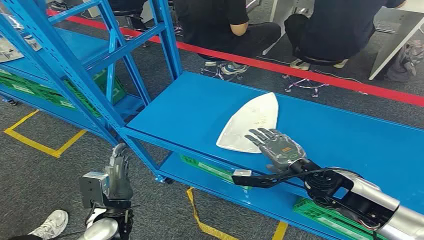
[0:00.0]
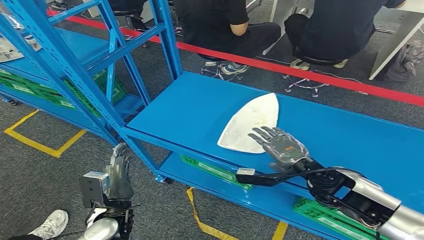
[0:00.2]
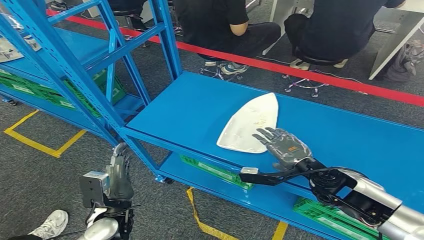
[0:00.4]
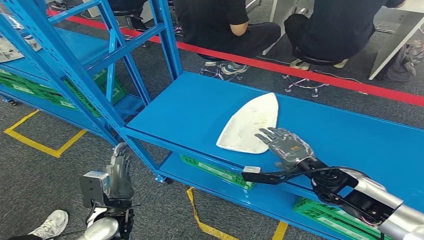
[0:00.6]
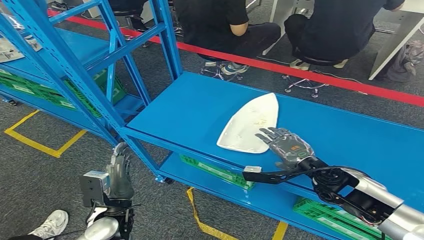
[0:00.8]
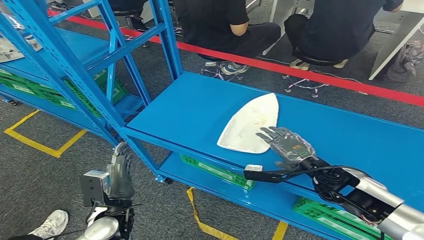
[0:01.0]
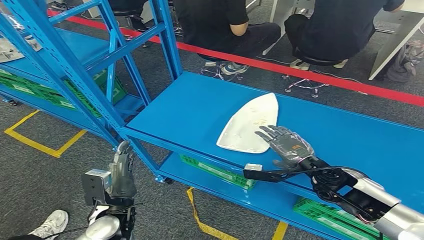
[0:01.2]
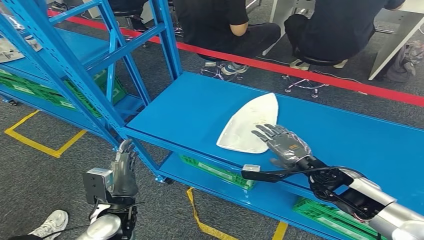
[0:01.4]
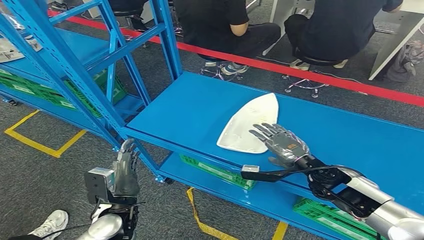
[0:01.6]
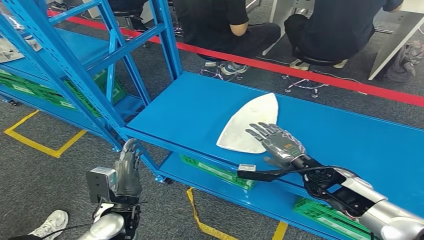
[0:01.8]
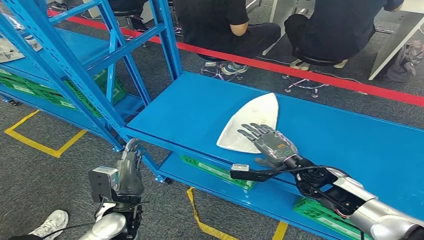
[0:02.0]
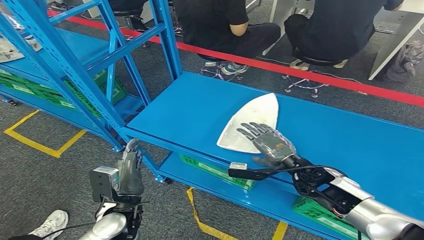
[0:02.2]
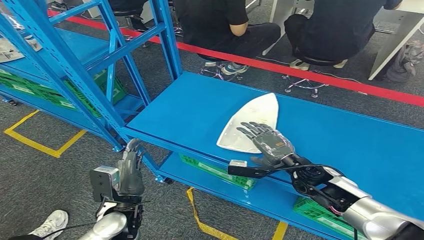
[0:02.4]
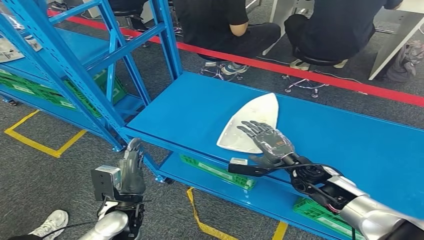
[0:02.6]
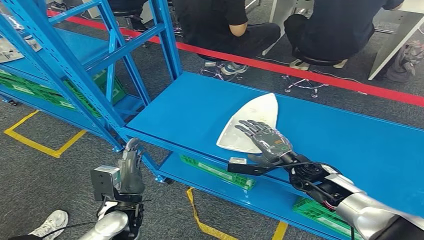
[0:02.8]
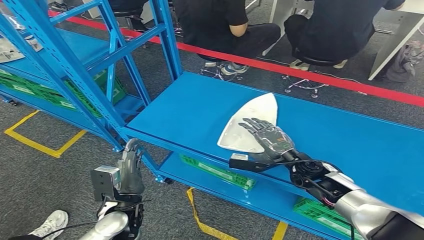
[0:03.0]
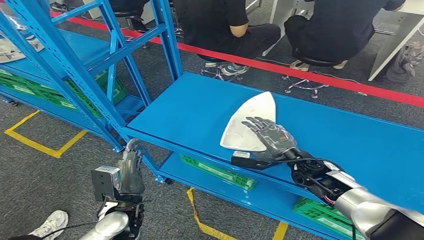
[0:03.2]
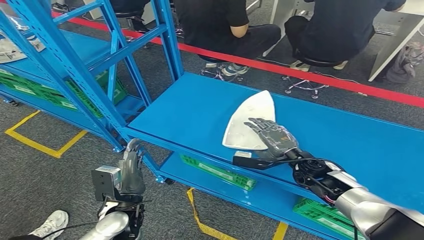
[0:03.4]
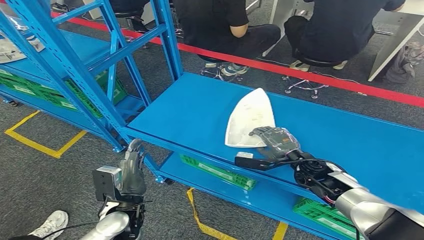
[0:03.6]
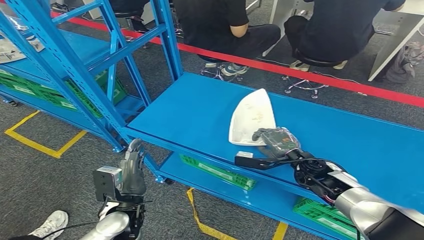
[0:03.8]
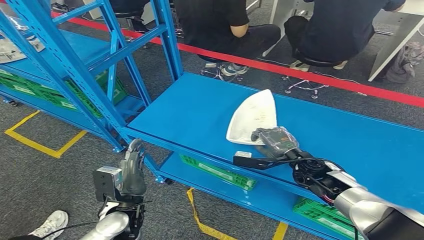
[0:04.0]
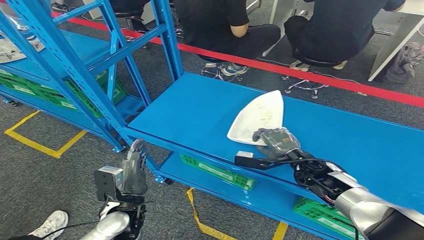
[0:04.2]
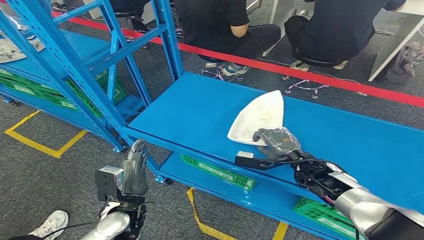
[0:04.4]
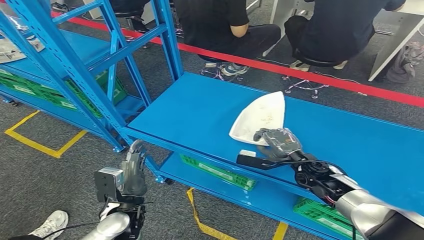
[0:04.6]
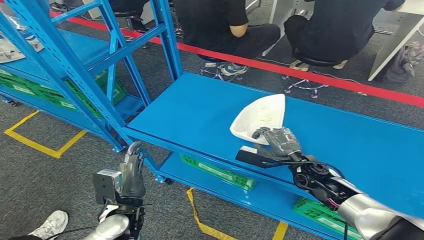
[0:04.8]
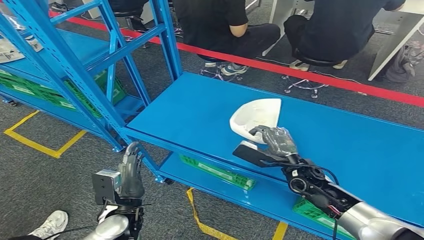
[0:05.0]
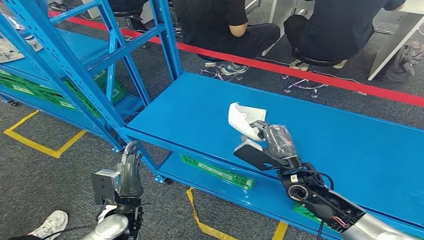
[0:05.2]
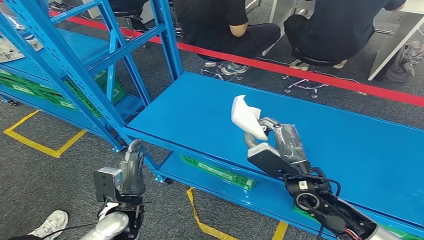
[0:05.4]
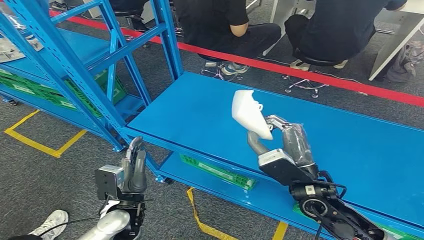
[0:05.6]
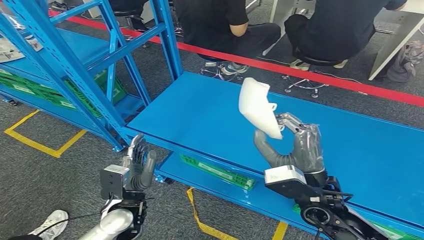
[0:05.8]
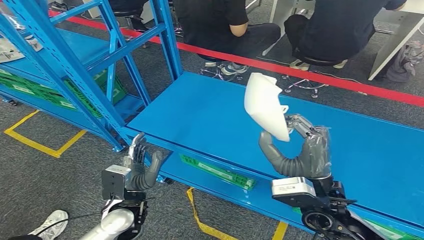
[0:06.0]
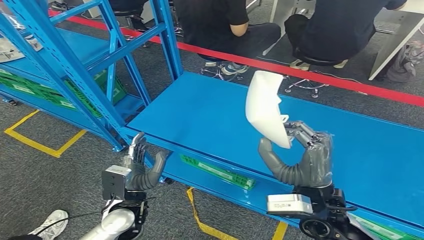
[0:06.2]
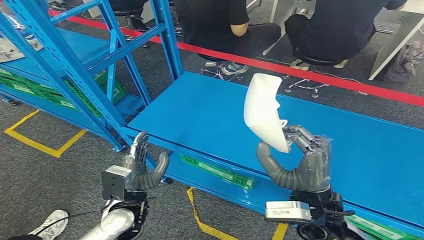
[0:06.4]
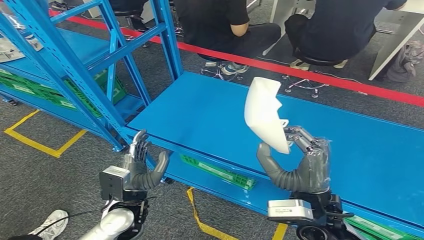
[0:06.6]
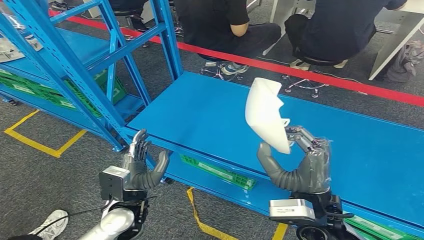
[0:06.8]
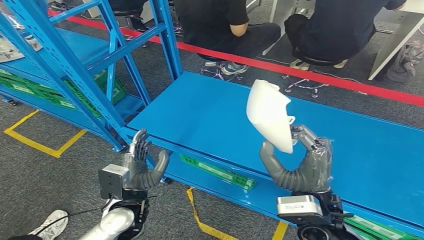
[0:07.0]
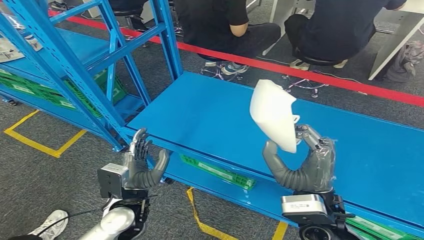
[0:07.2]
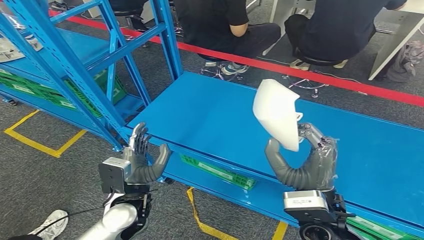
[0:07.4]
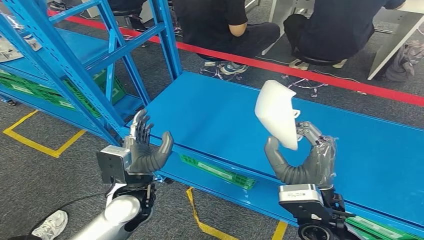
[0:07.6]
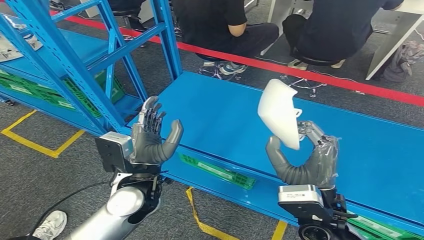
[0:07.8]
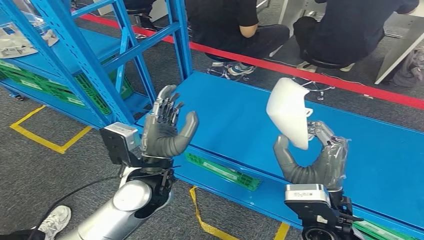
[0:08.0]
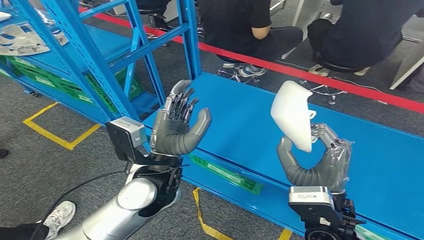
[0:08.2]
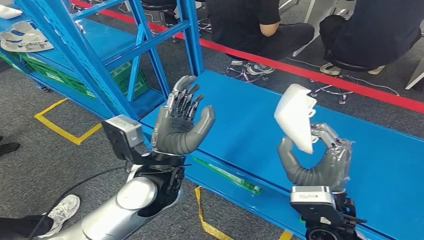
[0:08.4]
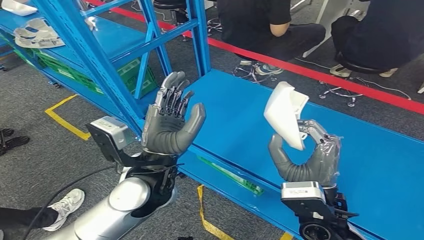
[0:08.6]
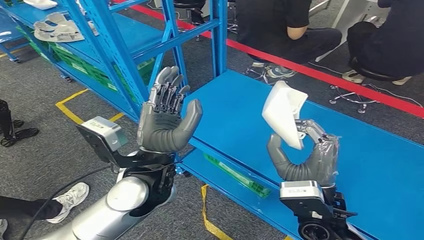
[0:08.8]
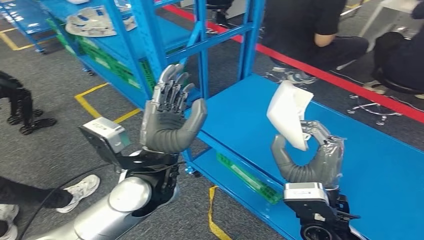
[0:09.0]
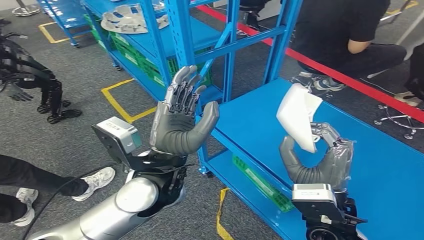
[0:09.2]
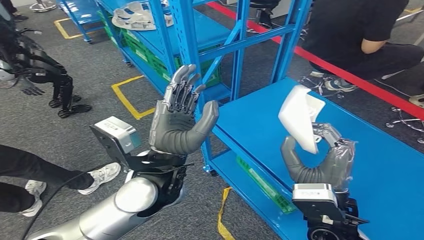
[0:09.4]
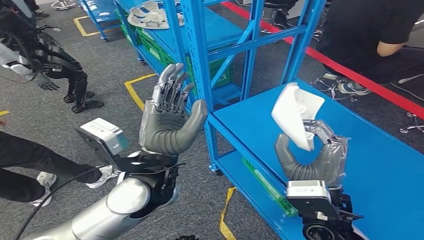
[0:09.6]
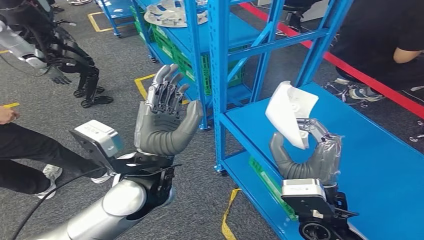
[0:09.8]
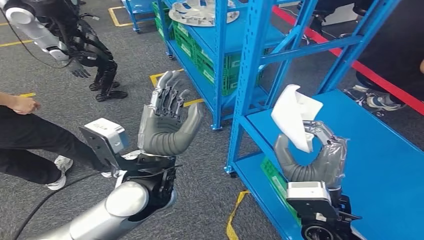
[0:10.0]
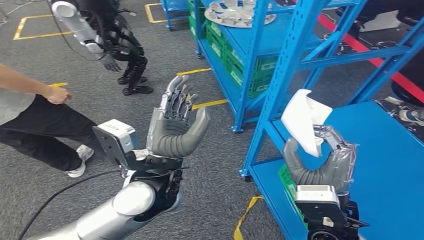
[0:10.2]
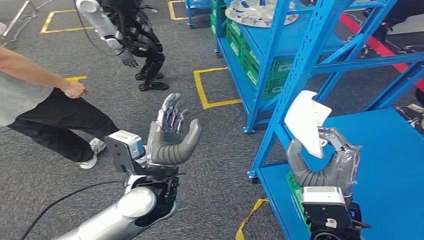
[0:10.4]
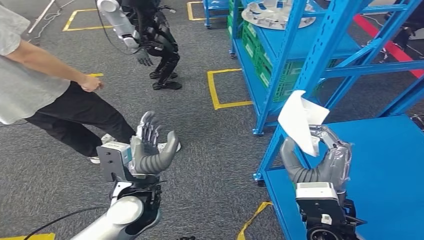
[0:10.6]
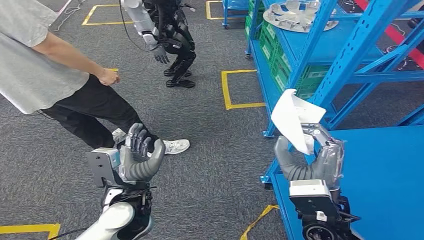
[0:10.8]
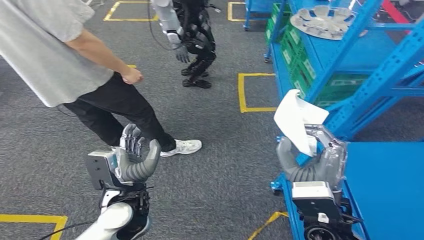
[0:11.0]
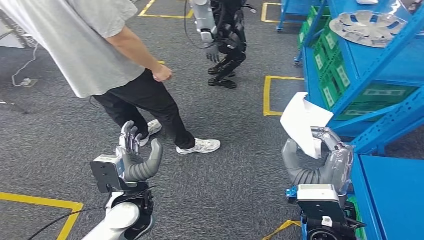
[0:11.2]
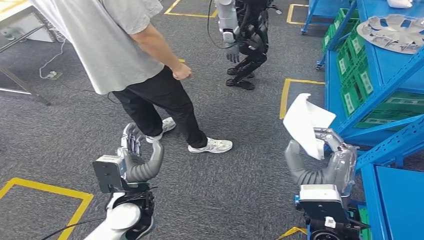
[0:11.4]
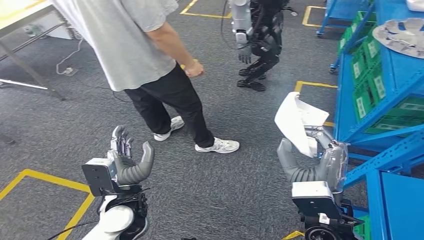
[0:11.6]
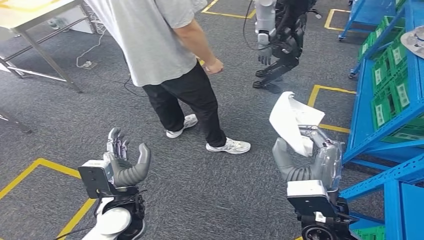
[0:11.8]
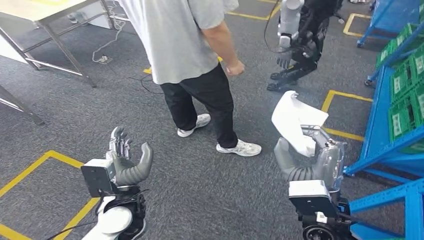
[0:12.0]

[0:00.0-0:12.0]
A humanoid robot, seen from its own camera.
Step, 0:00.0 to 0:06.6: Pick up the small component from the shelf.
0:01.6 to 0:04.4: The hands move only a little.
0:04.4 to 0:06.0: The right hand travels upward, backward and to the left by about 20 cm.
0:06.0 to 0:07.6: The left hand shifts roughly 5 cm upward.

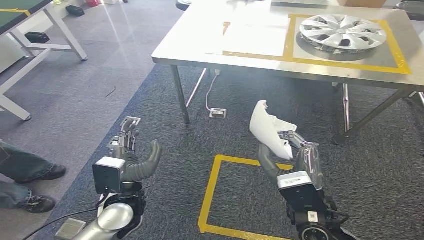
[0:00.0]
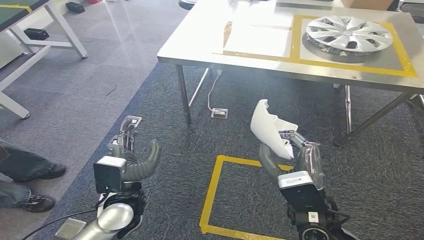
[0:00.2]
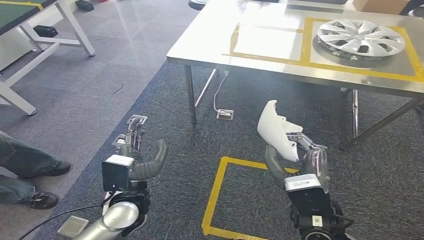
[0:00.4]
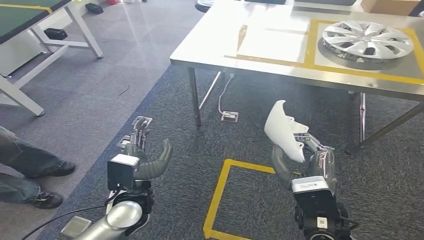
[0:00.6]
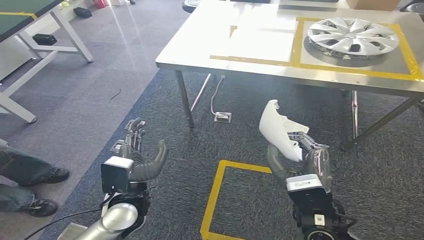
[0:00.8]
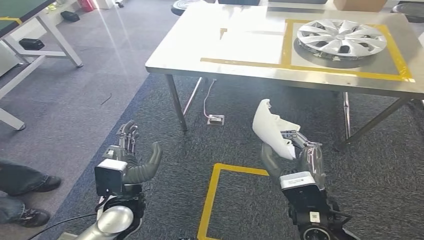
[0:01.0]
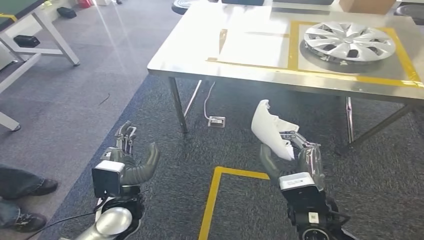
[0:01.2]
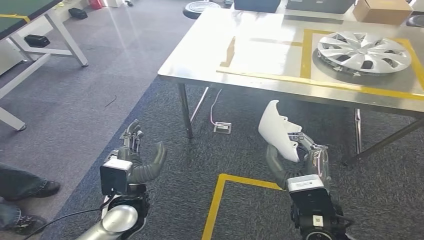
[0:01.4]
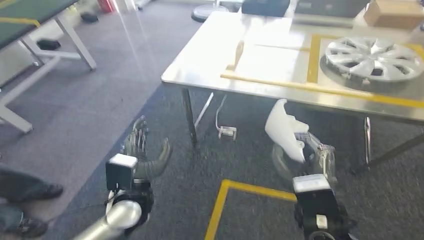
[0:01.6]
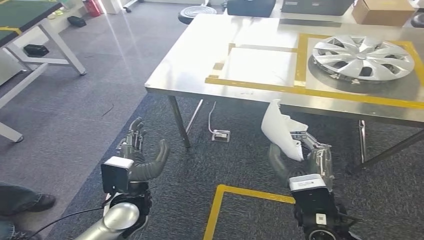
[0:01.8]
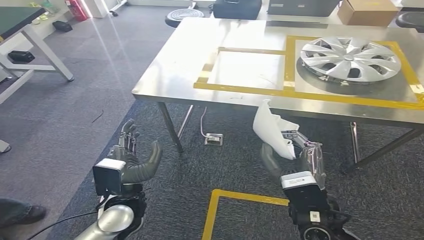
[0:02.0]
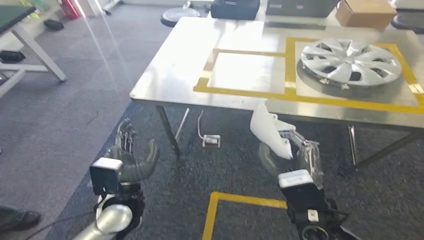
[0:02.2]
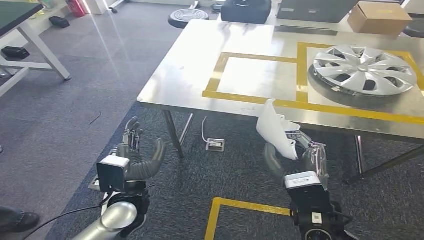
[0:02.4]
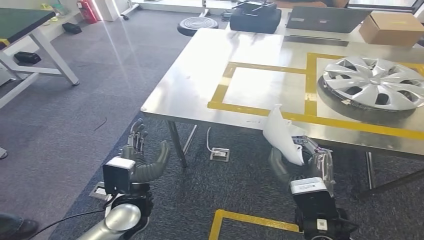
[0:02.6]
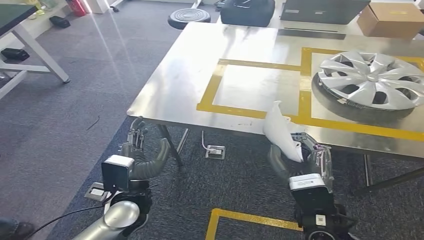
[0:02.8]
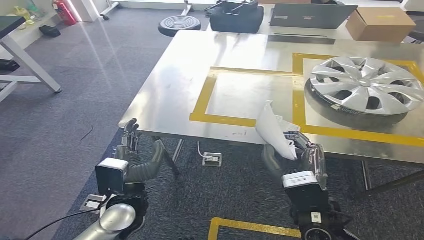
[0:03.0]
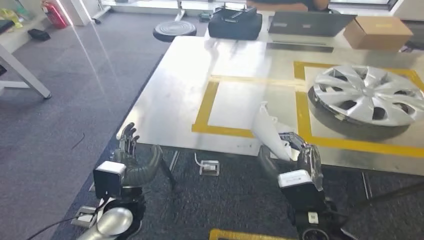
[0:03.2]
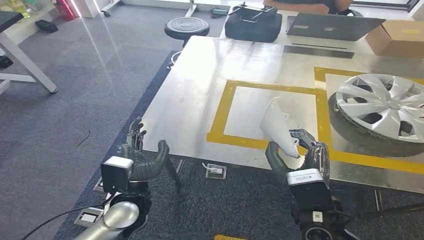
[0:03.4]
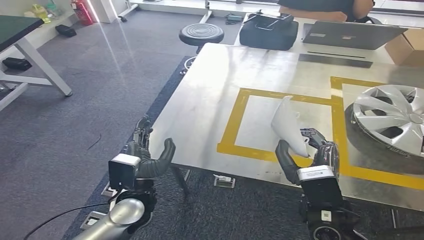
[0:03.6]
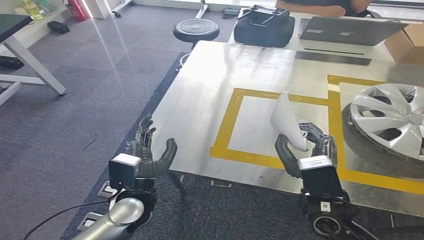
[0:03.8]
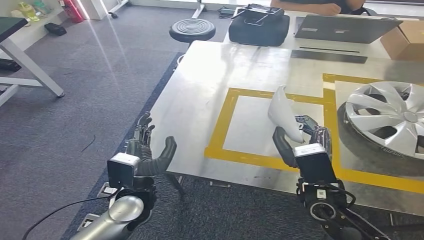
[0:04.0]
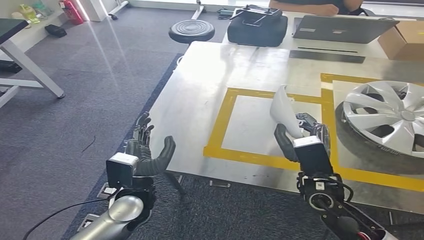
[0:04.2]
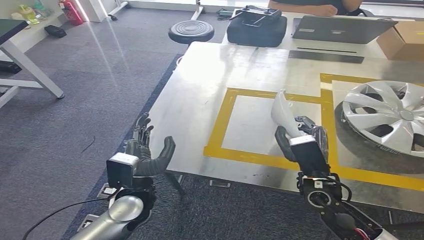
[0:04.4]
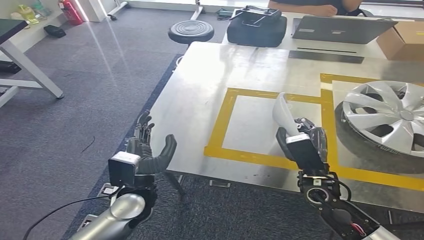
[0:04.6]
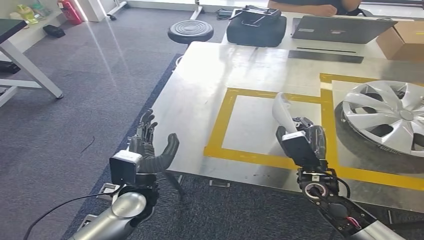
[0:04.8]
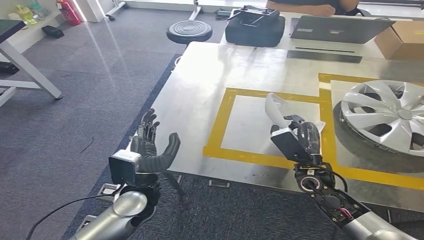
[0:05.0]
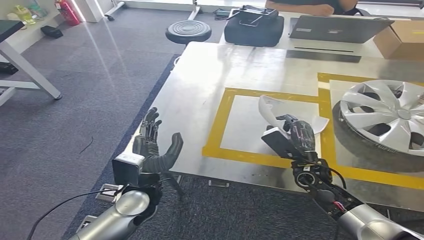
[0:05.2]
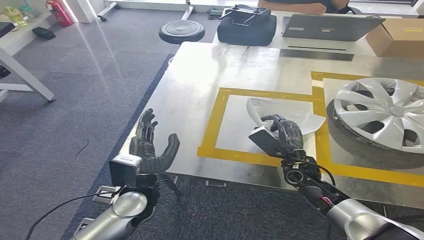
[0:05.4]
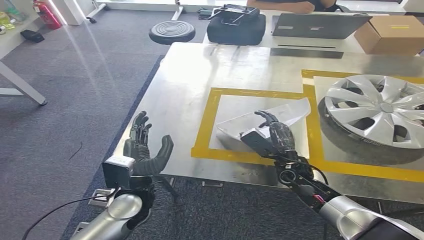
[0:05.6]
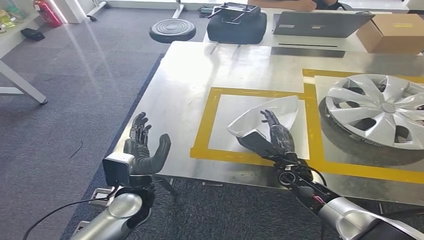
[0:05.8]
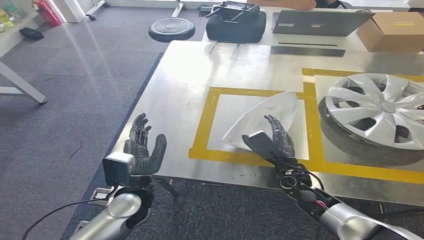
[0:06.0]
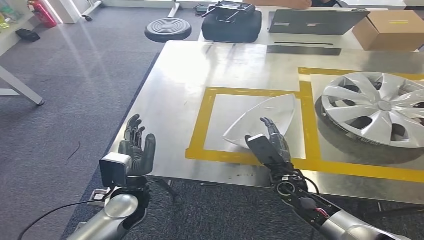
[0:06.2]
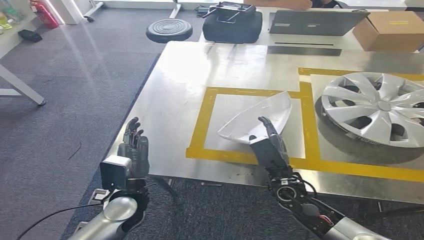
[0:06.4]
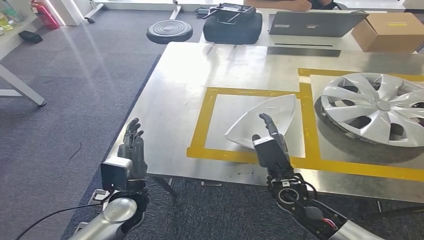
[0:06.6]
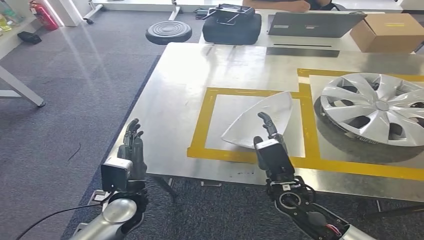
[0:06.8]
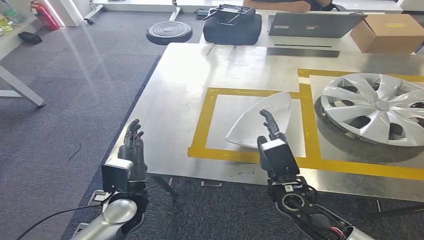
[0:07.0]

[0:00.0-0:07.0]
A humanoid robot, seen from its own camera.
Step, 0:00.0 to 0:02.0: Move the small component to the workbench.
0:05.6 to 0:07.0: The right hand is displaced backward by approximately 5 cm.
